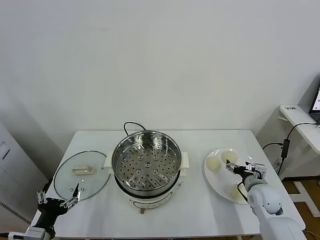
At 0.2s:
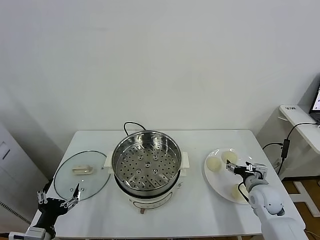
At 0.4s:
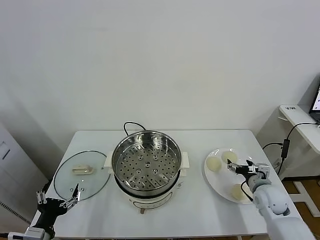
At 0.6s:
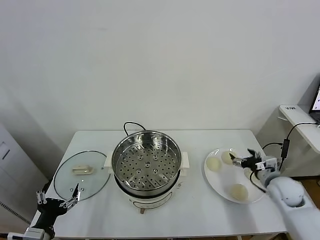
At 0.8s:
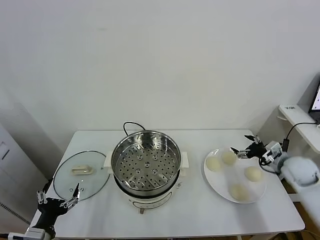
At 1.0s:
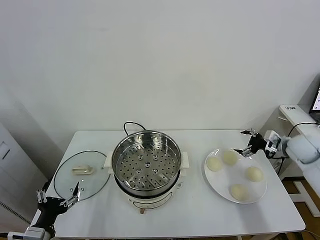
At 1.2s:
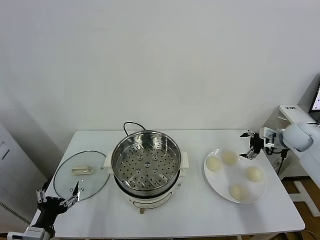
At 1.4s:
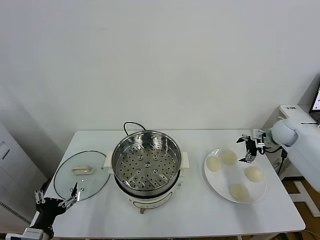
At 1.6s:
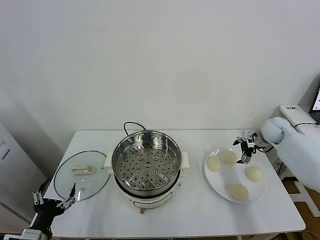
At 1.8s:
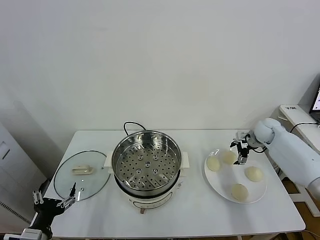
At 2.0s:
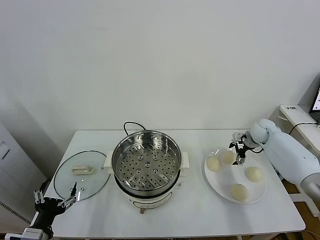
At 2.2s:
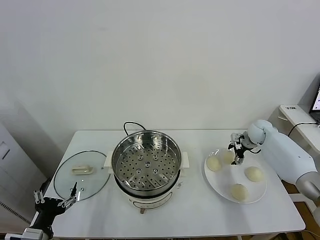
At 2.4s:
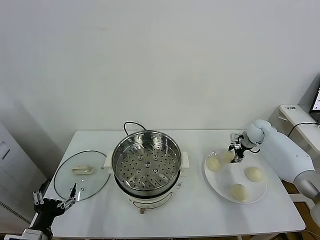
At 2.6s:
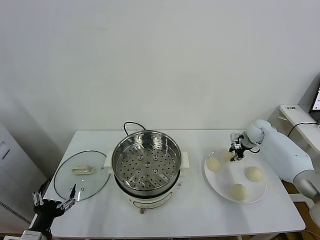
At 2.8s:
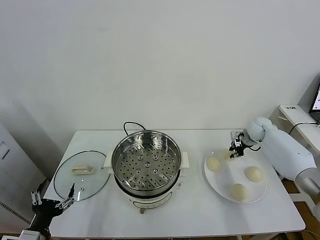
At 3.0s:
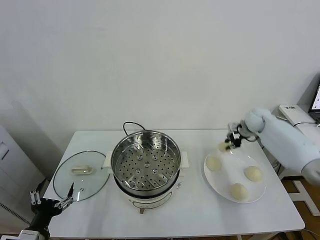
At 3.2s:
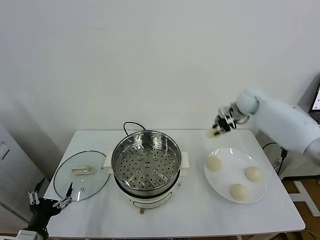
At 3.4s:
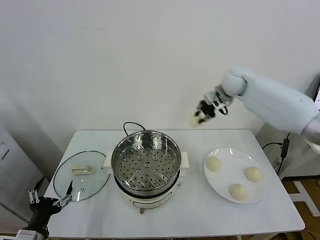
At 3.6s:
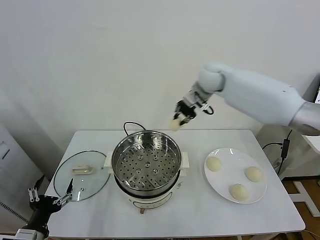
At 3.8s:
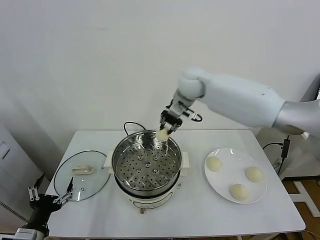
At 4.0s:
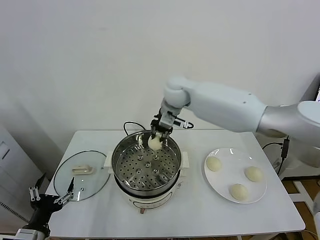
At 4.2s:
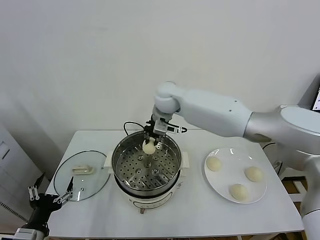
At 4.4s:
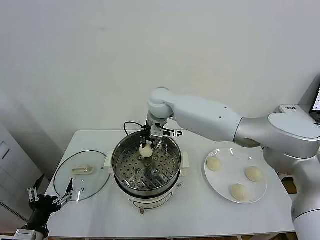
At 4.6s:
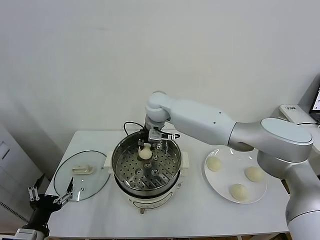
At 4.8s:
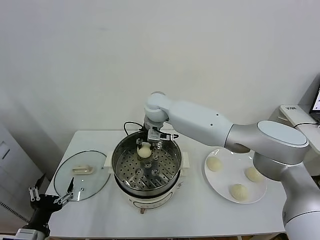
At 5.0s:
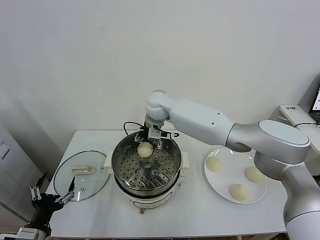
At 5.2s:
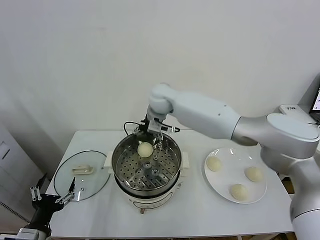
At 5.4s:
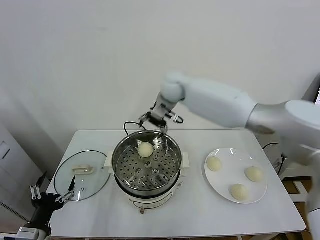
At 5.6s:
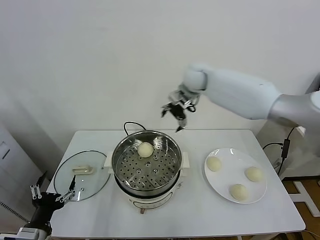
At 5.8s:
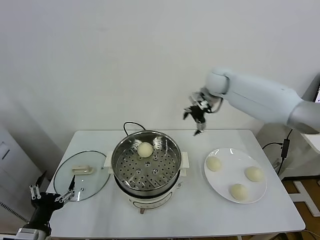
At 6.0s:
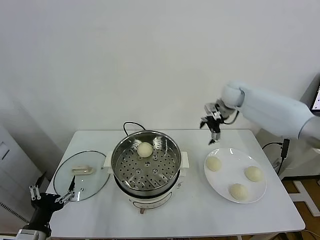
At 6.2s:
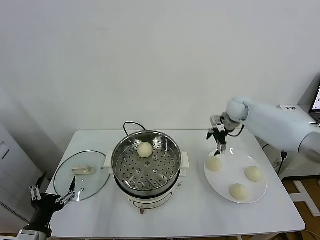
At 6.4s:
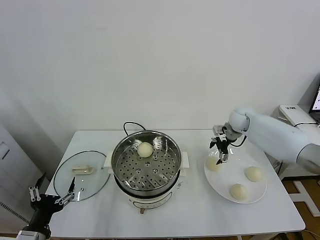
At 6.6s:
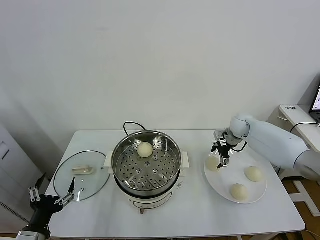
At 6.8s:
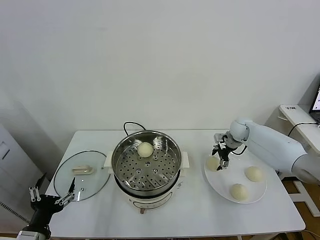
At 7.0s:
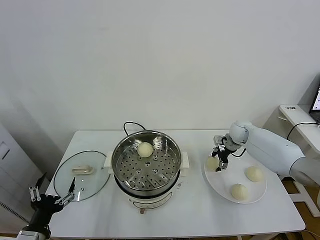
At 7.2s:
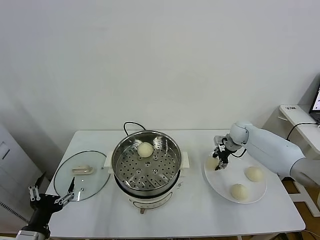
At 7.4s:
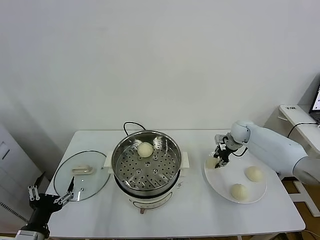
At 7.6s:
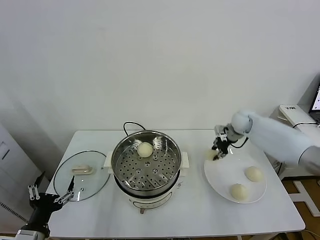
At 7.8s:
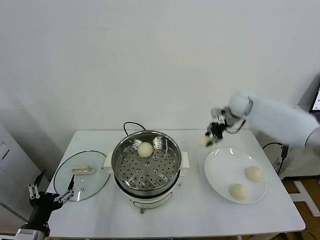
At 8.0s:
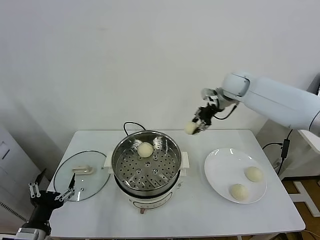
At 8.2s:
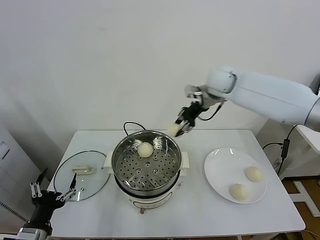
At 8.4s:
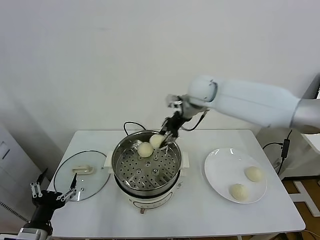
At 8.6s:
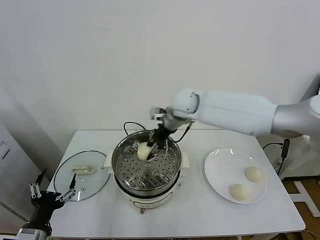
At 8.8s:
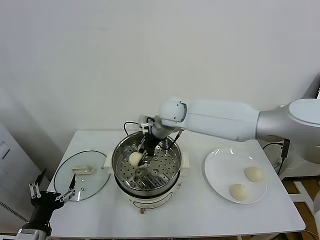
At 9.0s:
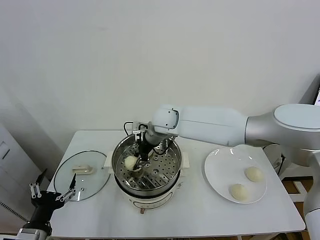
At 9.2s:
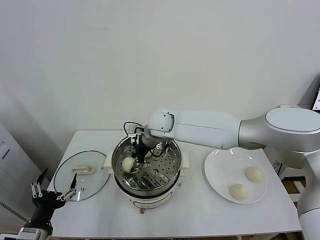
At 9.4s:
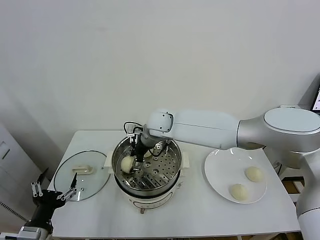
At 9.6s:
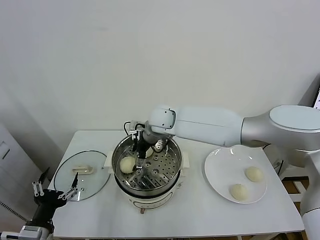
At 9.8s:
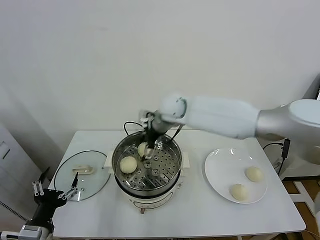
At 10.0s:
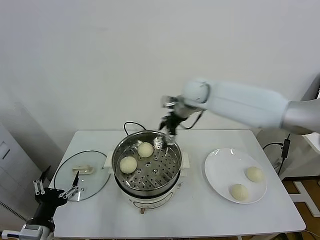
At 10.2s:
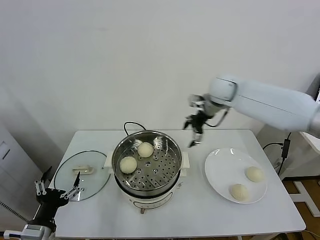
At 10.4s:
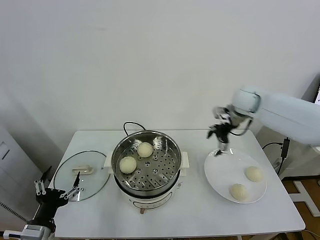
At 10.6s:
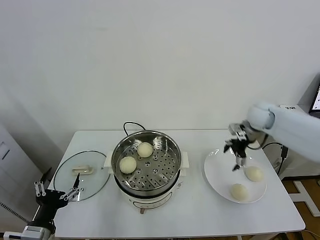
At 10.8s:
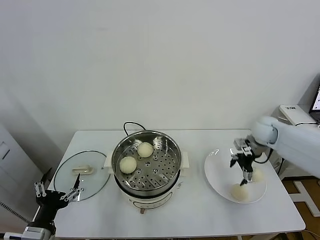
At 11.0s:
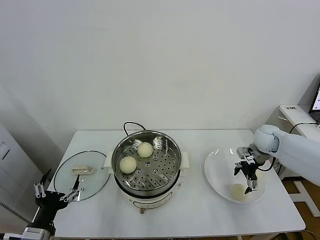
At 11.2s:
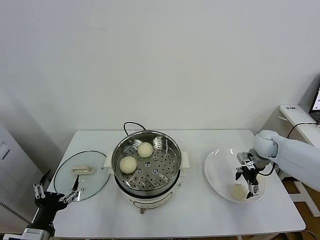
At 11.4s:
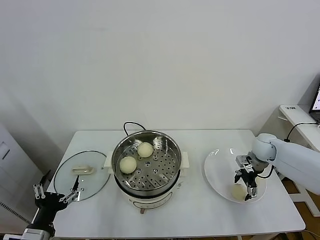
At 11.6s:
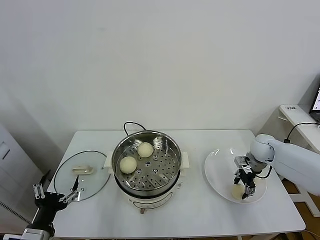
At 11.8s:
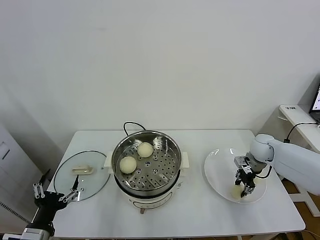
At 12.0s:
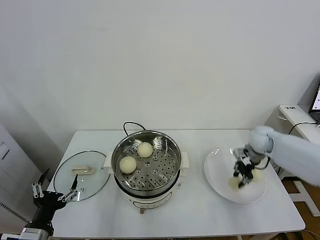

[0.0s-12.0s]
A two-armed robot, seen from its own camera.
Task of the whole recording: take steamed baozi put them in steamer.
Step, 0.0s to 2.4s: Grasp the baozi in the plate with right gripper.
Step, 2.6s to 5.0s: Place the baozi on the steamer with right gripper.
Step, 5.2s to 7.0s: Grasp the baozi in the plate with right gripper.
Step, 7.2s to 9.6s: Place the baozi on the steamer with right gripper.
Step, 9.8s to 11.4s: Grasp the baozi in the plate with right gripper.
1.6s to 3.0s: The right gripper shifts some 10 cm to the left and upward, and closes up.
3.0s to 4.4s: The right gripper heads to the left, covering about 35 cm.
4.4s to 6.0s: The right gripper heads to the right, covering about 30 cm, and opens.
6.0s to 7.6s: The right gripper shifts roughly 5 cm downward, and closes its fingers.
7.6s to 9.0s: The right gripper travels to the left by some 30 cm.
9.0s to 10.4s: The right gripper travels to the right by about 30 cm, and opens its fingers.
10.4s to 12.0s: The right gripper moves downward and to the right, some 15 cm, and closes its fingers.

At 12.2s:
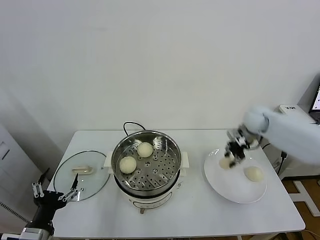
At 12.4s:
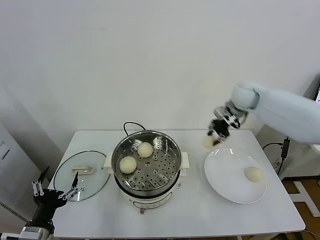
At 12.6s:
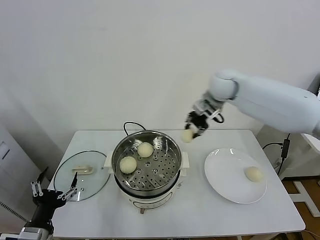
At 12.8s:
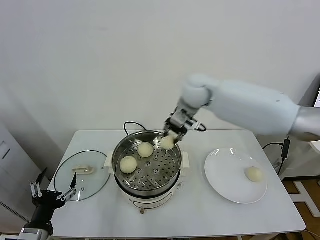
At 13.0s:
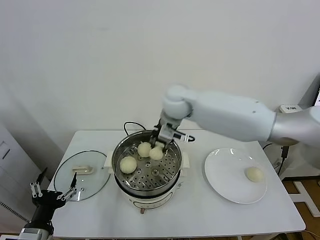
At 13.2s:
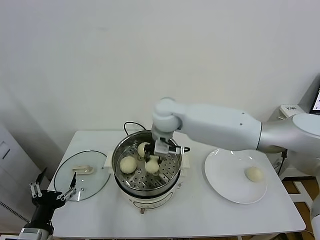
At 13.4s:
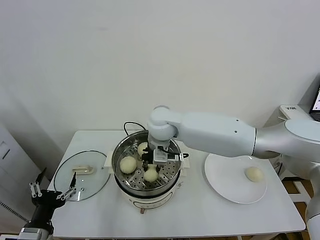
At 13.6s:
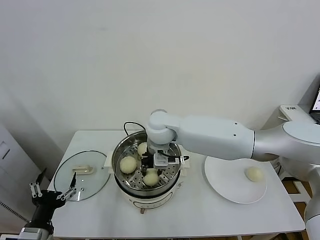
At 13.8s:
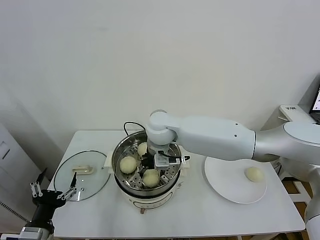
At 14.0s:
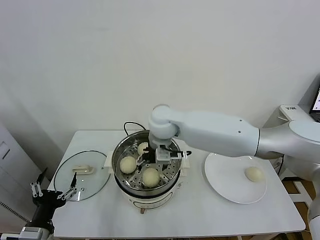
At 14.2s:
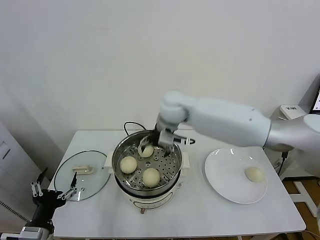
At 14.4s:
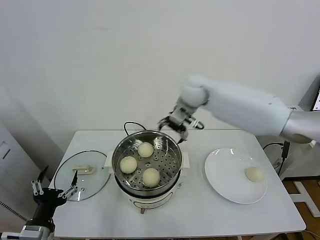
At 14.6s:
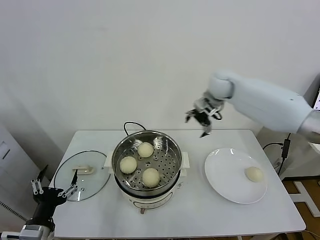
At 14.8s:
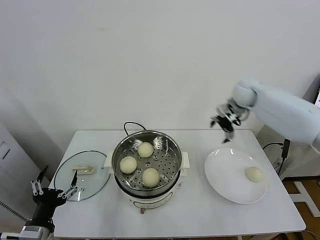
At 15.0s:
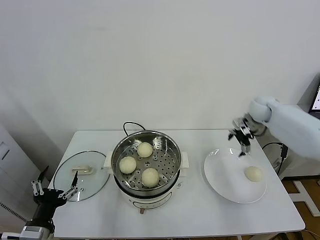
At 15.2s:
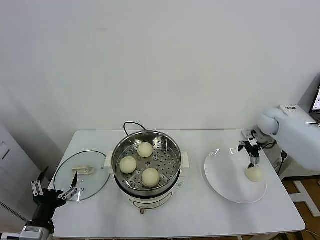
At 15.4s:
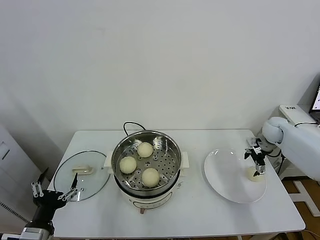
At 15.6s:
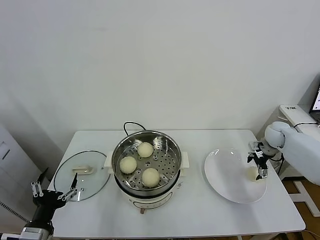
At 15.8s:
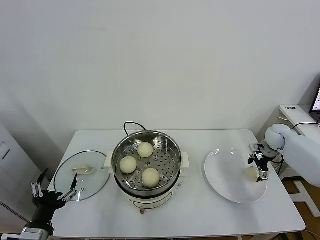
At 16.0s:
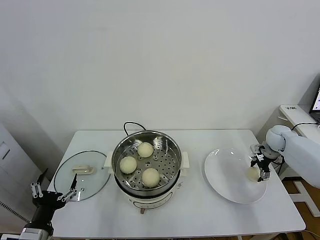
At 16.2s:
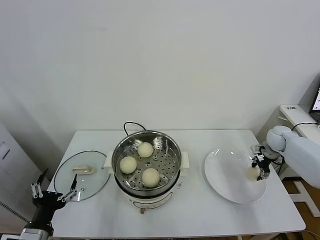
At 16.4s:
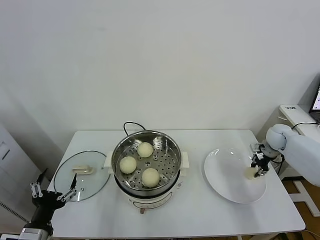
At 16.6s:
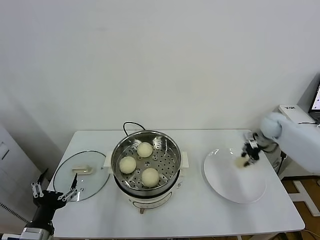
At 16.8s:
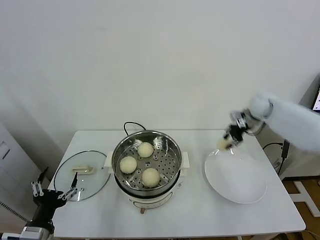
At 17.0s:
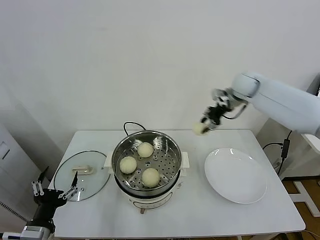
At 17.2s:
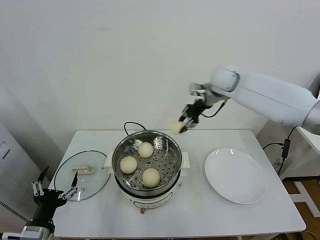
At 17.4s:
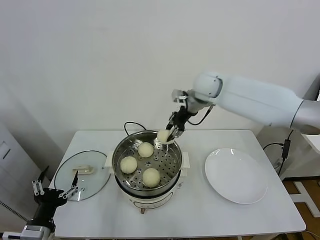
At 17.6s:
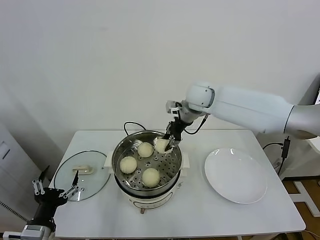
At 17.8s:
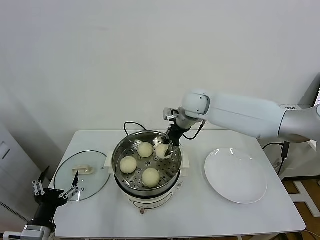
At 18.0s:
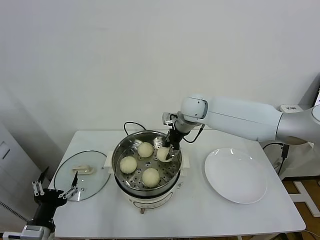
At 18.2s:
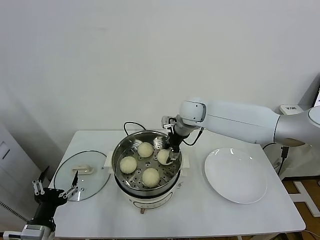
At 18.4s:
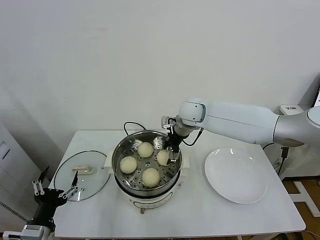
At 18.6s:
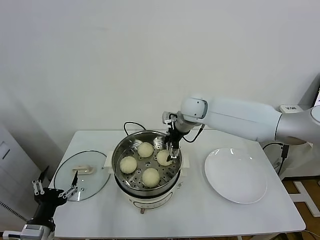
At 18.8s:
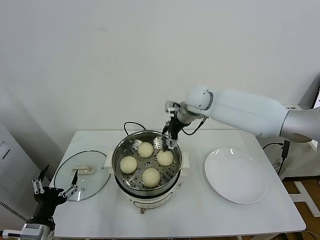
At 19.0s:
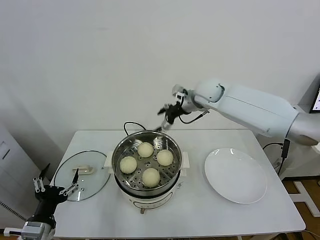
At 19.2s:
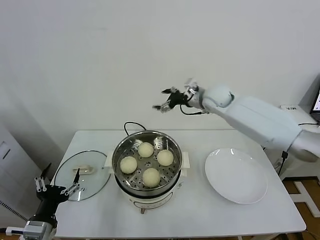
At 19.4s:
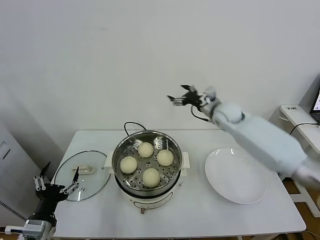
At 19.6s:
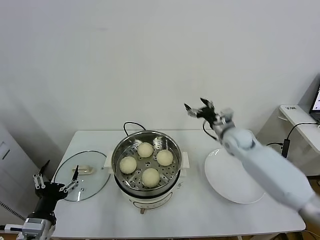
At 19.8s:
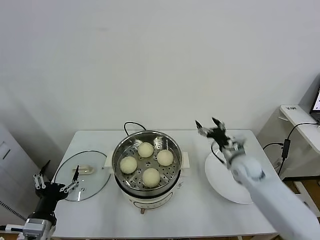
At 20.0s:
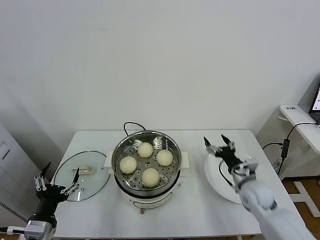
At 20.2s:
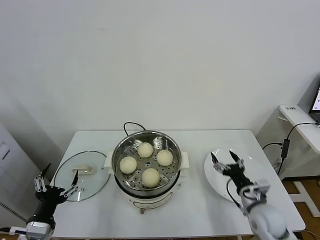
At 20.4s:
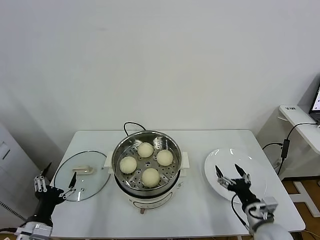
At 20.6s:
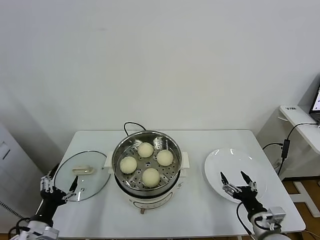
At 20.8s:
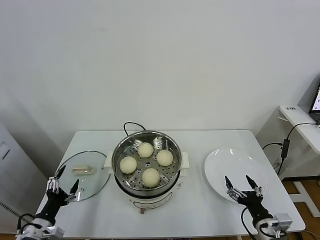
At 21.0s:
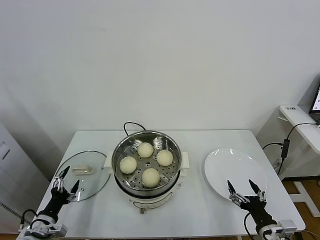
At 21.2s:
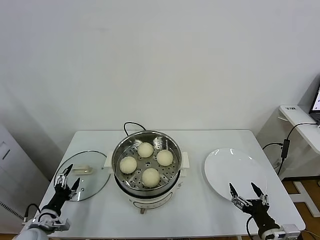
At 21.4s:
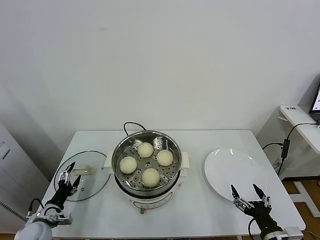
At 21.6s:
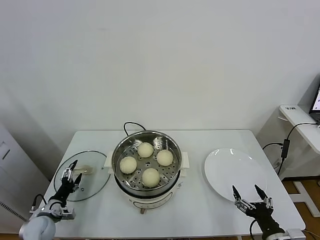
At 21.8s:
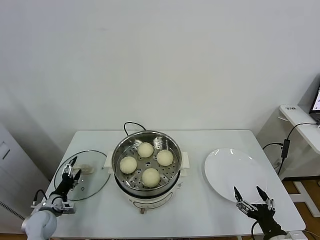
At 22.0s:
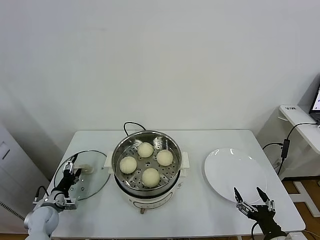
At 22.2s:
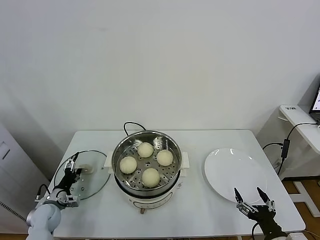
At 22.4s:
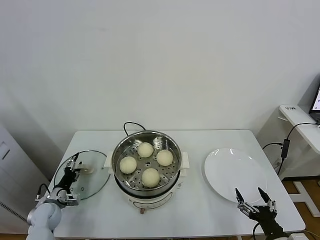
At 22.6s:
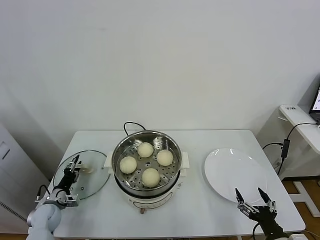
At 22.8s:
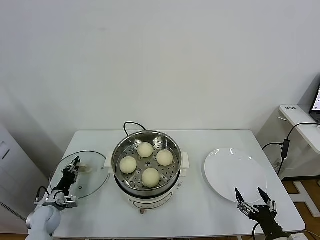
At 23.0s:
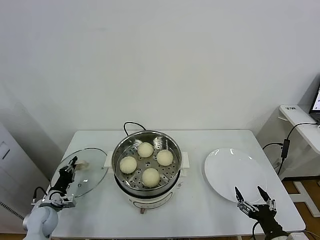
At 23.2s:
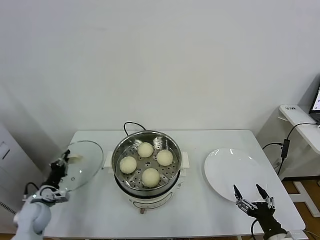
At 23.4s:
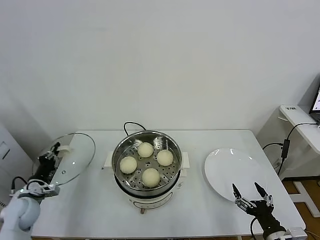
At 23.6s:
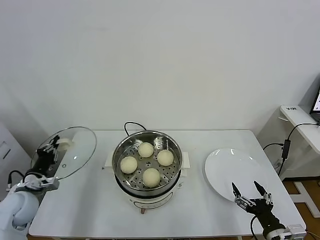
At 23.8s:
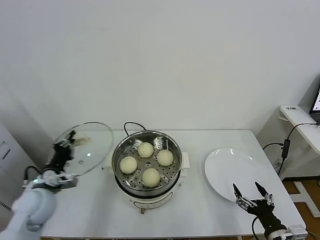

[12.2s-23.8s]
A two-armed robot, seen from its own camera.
Task of the whole recording: take steamed baozi put them in steamer.
Step, 12.2s to 14.0s: Place the baozi on the steamer with right gripper.
Step, 14.2s to 16.0s: Grasp the baozi in the plate with right gripper.
Step, 16.2s to 18.4s: Place the baozi on the steamer with right gripper.
Step, 18.8s to 23.0s: Grasp the pot lid with left gripper.
12.2s to 13.6s: The right gripper heads to the left, covering some 35 cm.
13.6s to 15.0s: The right gripper heads to the right, covering approximately 40 cm, and opens up.
15.0s to 16.6s: The right gripper closes.
16.6s to 18.0s: The right gripper is displaced to the left by approximately 30 cm.
18.0s to 19.4s: The right gripper goes approximately 15 cm to the right, and opens its fingers.
19.4s to 21.0s: The right gripper is displaced backward and downward by about 40 cm. The left gripper heads downward and to the left, covering roughly 15 cm.
21.0s to 22.4s: The left gripper is displaced forward and downward by approximately 15 cm.
22.4s to 23.8s: The left gripper heads upward, covering some 15 cm, and closes its fingers.
